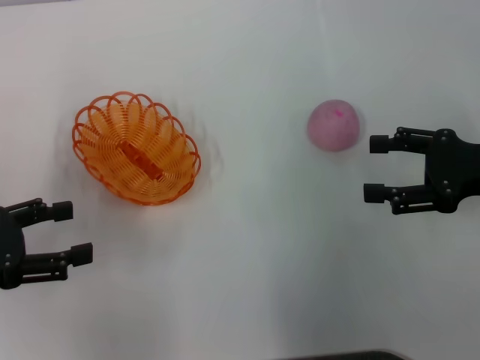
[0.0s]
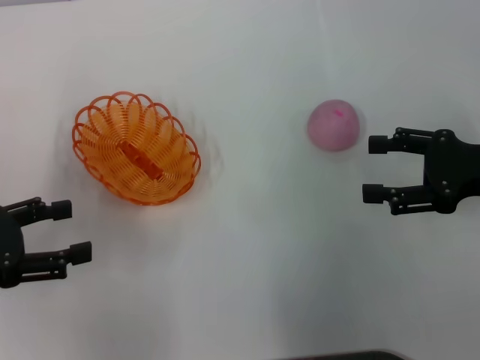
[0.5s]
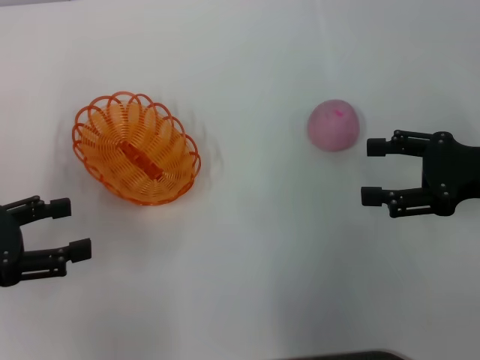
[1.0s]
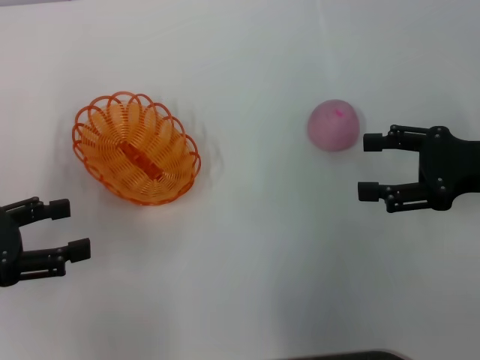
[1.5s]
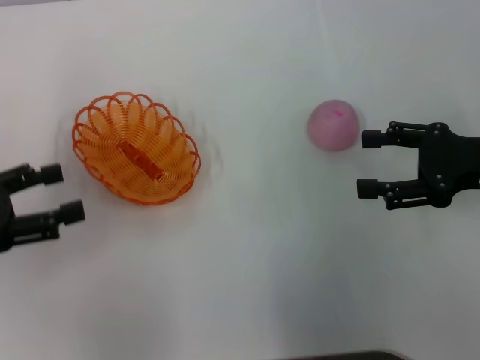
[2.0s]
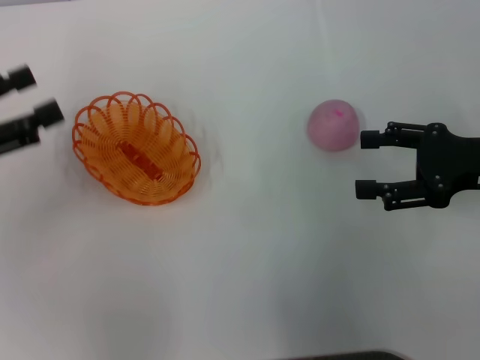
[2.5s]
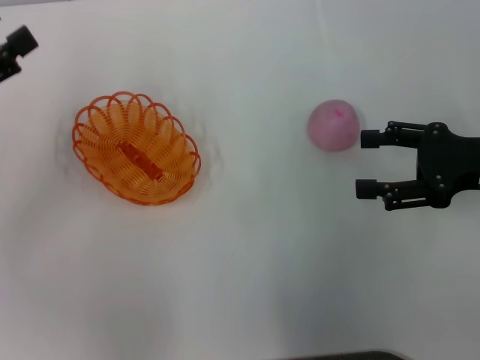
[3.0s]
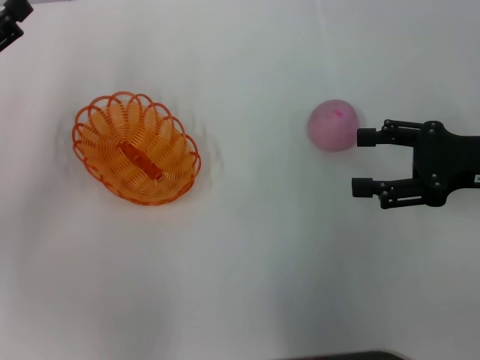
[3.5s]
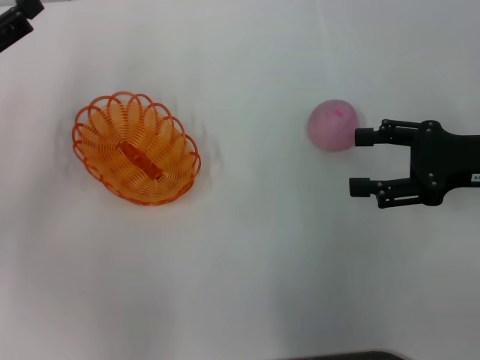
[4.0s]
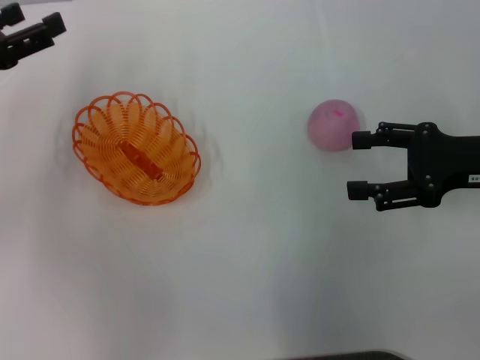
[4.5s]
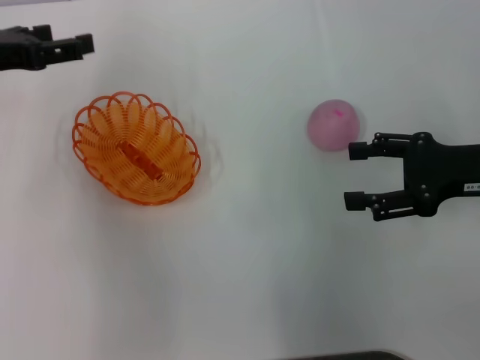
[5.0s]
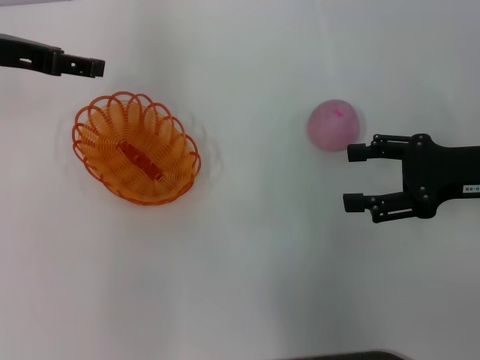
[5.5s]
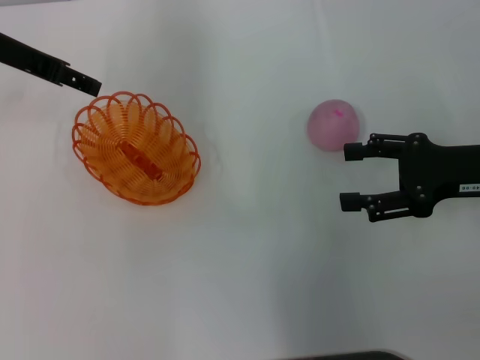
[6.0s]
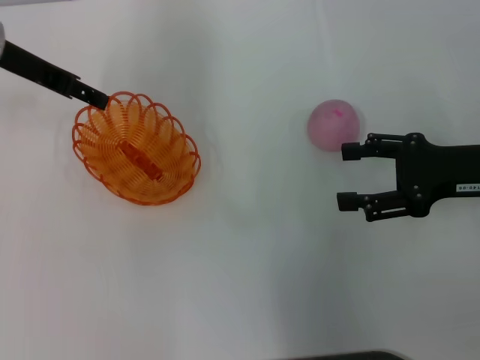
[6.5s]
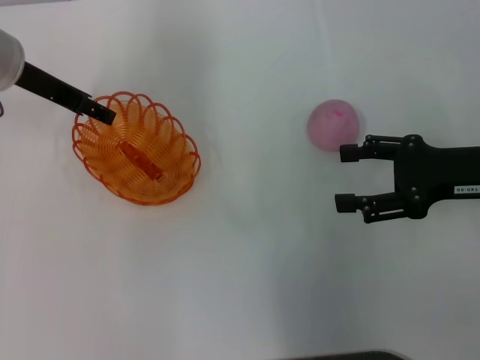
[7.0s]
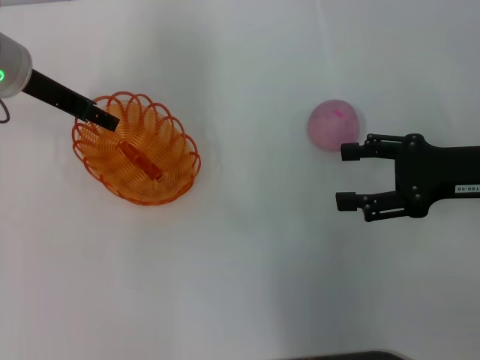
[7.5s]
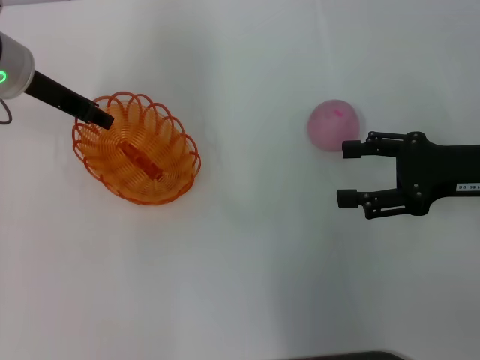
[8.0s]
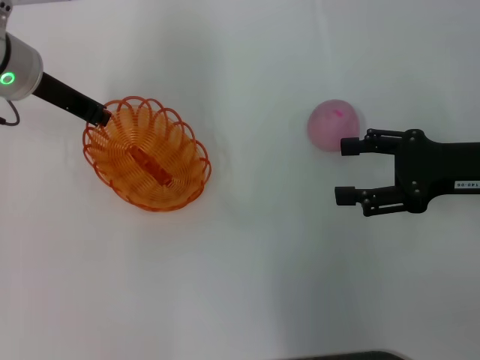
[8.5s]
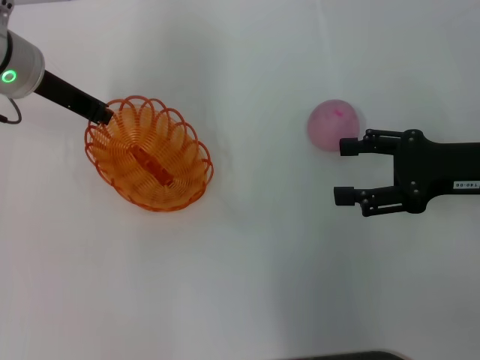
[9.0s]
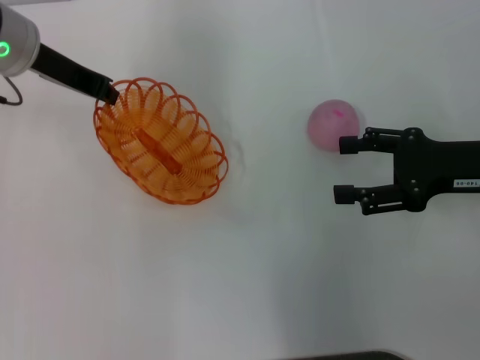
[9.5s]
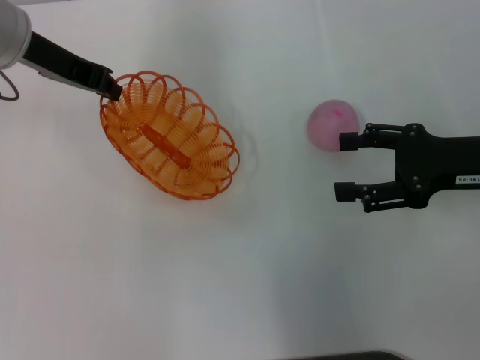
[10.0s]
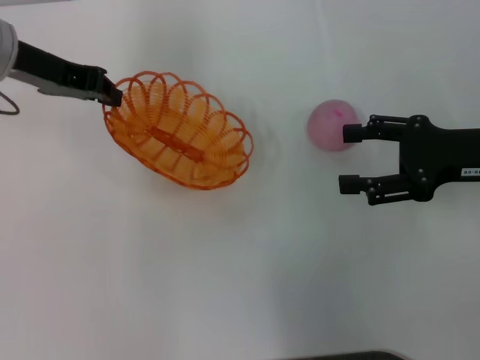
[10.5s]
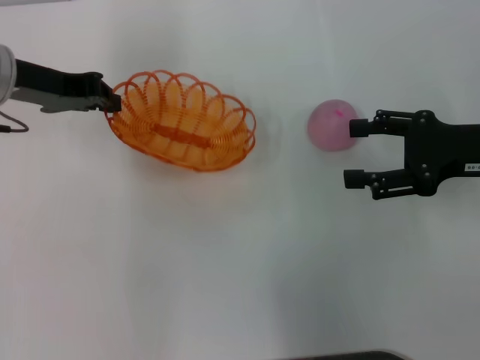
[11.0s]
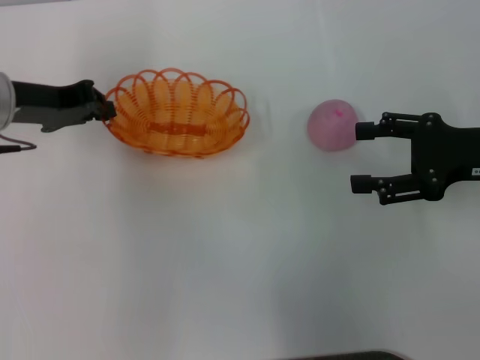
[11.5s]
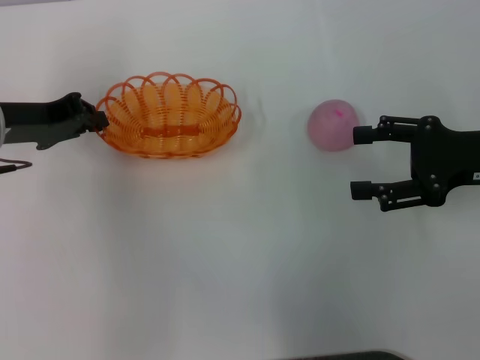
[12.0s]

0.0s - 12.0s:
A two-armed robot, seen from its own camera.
Step, 0.0s - 9.0s: Pick up the basket with the left gripper.
0.0s - 2.0s: The grippers stay close to where they were, moving slightly.
2.0s - 4.0s: The left gripper shifts some 10 cm forward.
4.0s - 6.0s: The left gripper heads forward, to the right and upward, covering about 15 cm.
6.0s - 8.0s: The left gripper changes place by roughly 5 cm.
8.0s - 10.0s: The left gripper closes up.
10.0s - 12.0s: The left gripper is displaced downward, backward and to the left by about 10 cm.

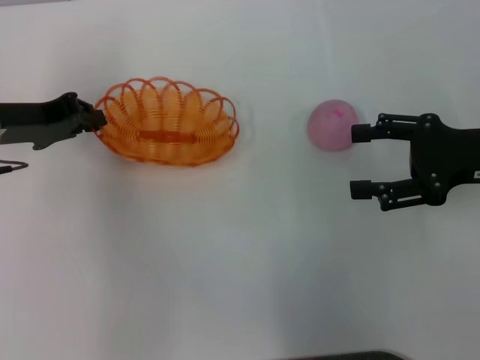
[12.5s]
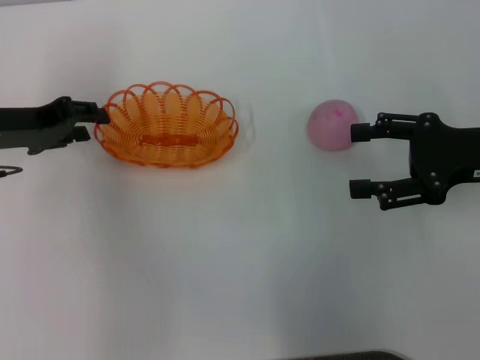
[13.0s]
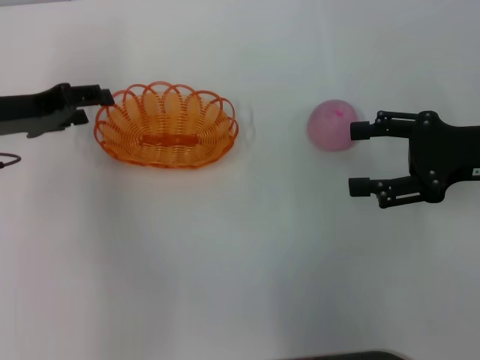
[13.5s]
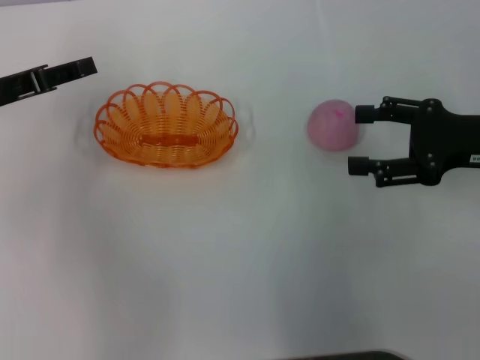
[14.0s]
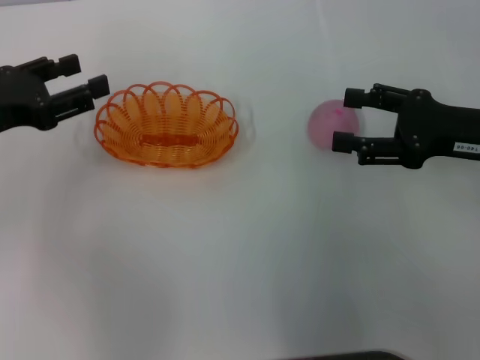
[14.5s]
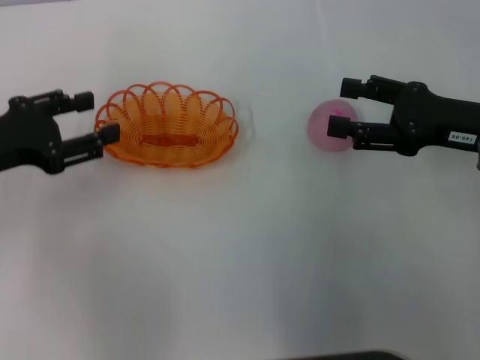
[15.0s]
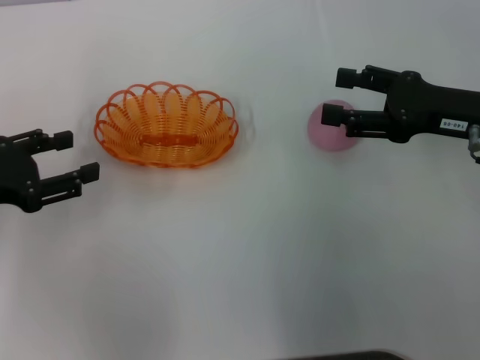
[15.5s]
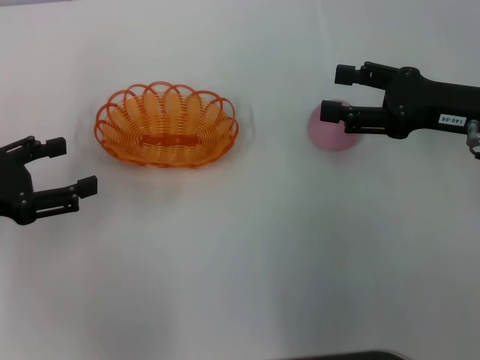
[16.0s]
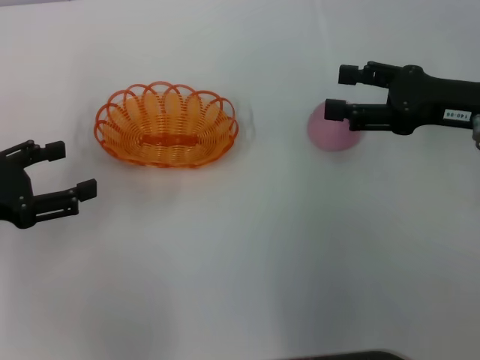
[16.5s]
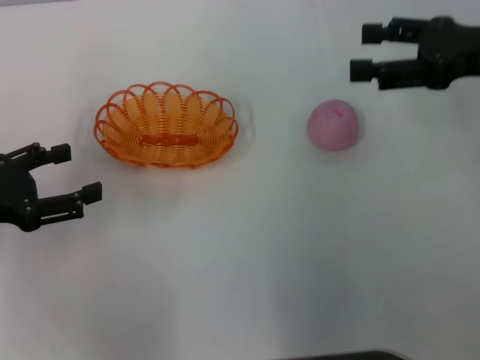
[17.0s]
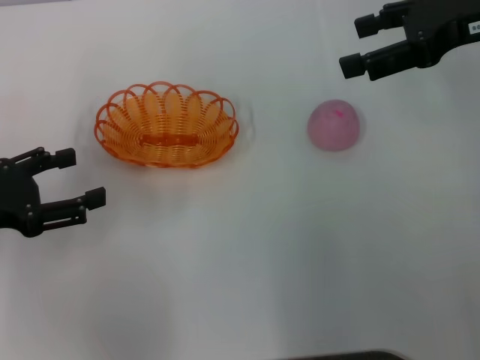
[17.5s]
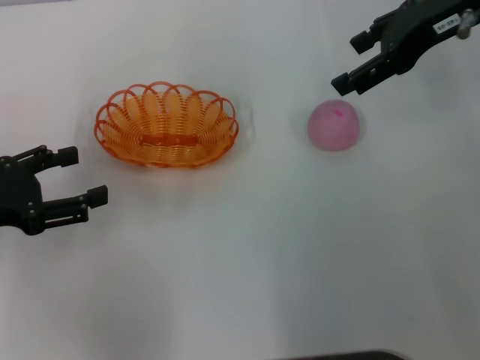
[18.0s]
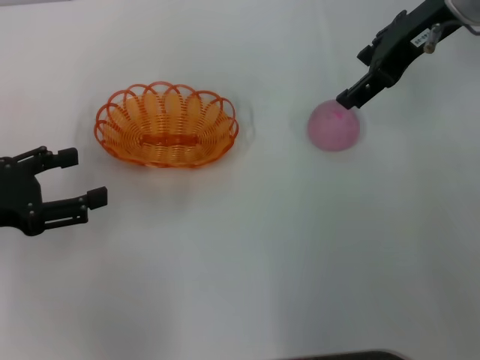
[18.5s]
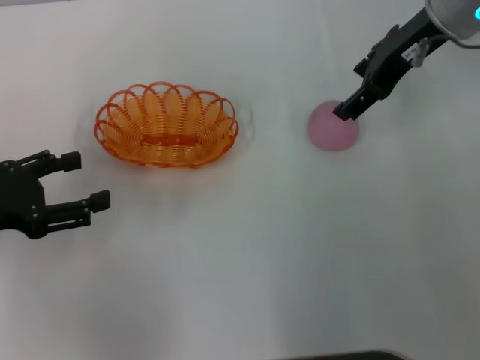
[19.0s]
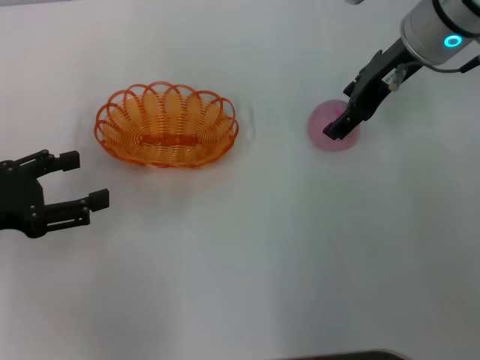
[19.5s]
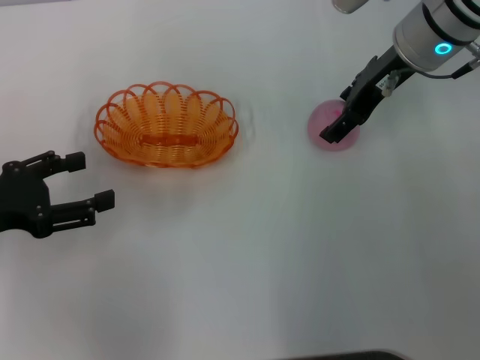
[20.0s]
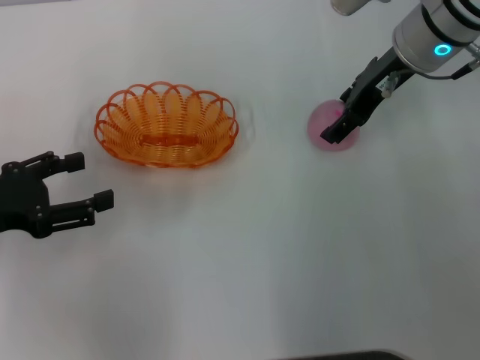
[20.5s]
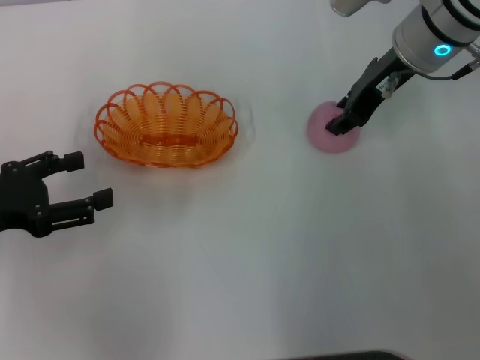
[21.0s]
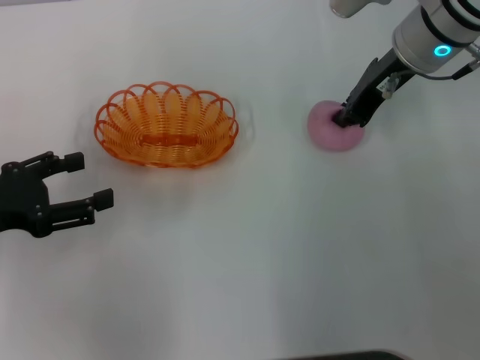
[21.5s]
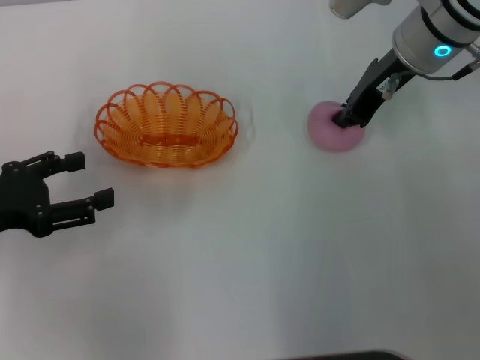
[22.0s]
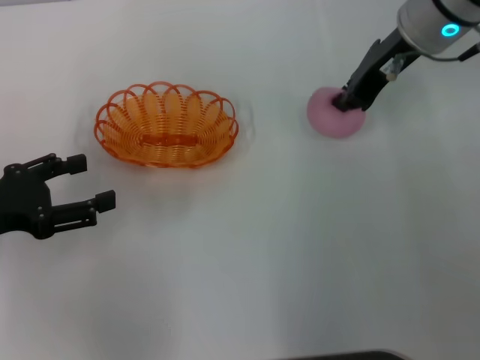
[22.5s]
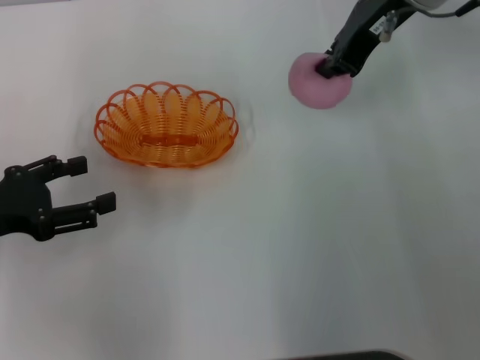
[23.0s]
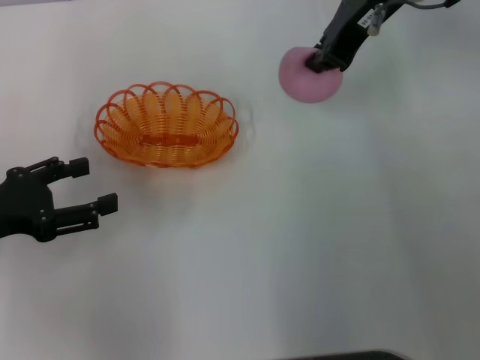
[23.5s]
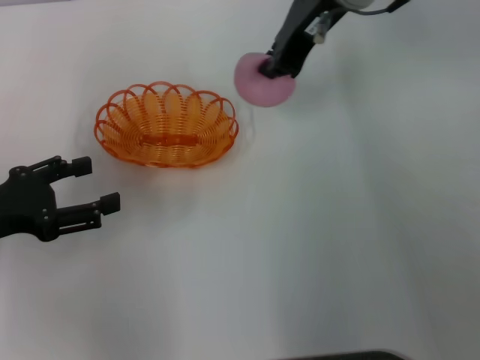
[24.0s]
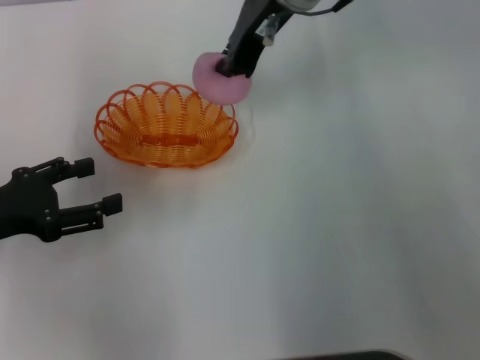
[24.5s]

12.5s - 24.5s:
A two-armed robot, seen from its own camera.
Step, 14.0s - 23.0s: Pick up the peach with the right gripper.
12.5s - 14.5s: The left gripper changes place by some 5 cm, and opens.
14.5s - 16.5s: The left gripper shifts about 5 cm backward.
16.5s - 18.5s: The right gripper moves upward, forward and to the left, about 15 cm.
18.5s - 20.5s: The right gripper travels downward by about 5 cm.
20.5s - 22.5s: The right gripper closes.
22.5s - 24.5s: The right gripper is displaced to the left by about 10 cm.

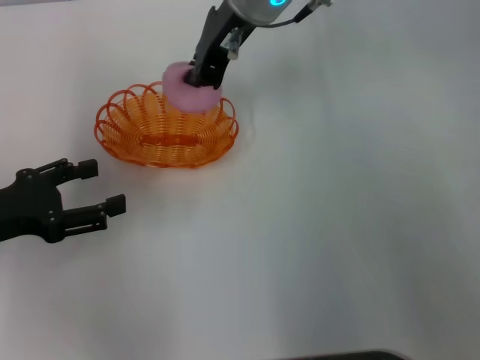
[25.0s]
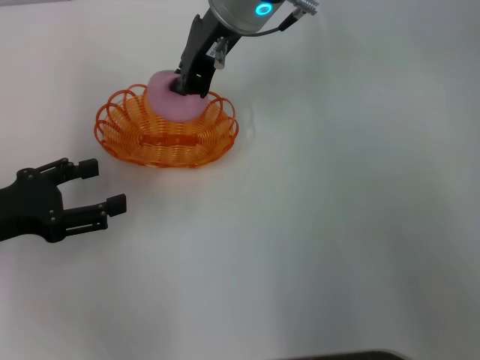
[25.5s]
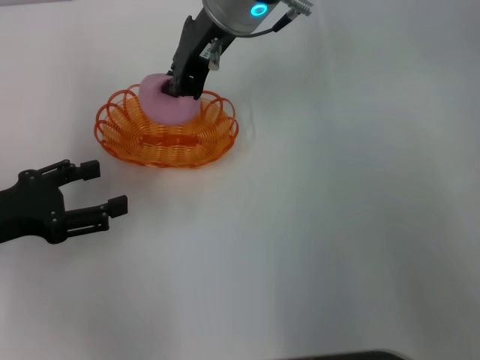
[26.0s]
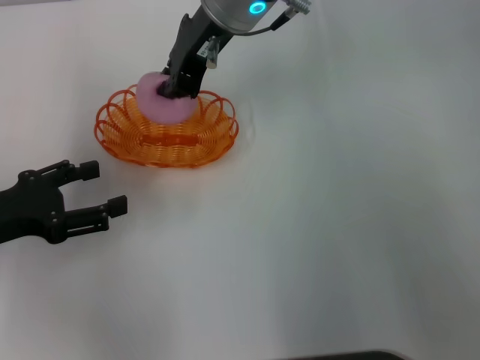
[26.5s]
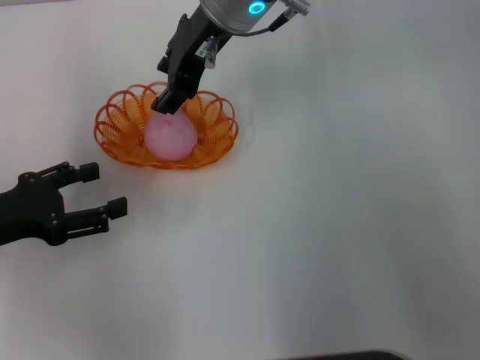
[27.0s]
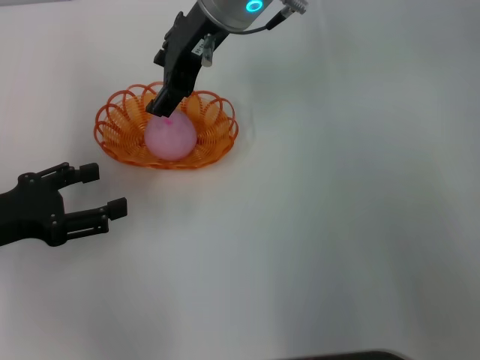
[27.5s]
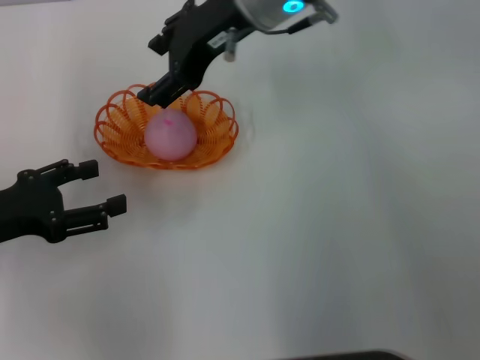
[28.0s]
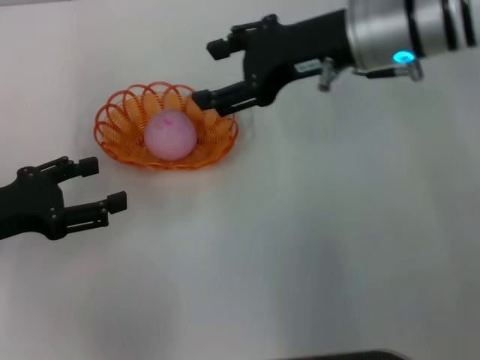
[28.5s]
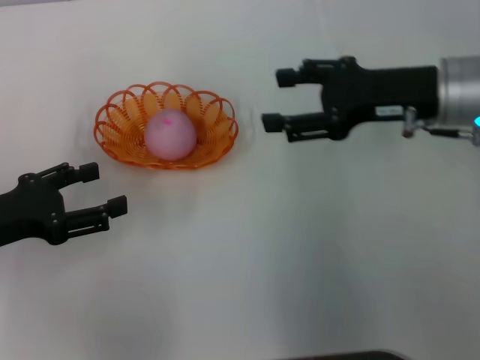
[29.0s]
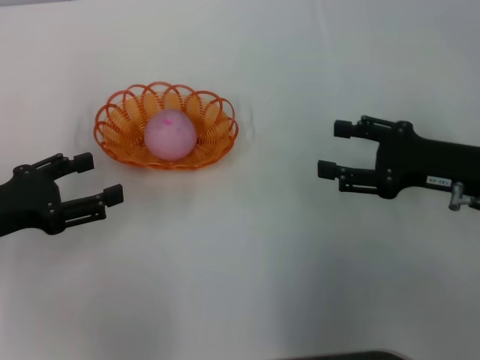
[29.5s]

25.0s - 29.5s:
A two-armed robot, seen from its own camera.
Step, 25.0s - 28.0s: Place the peach into the basket with the right gripper.
25.0s - 27.0s: The right gripper opens.
27.0s - 29.5s: The right gripper is displaced to the right, backward and downward by about 35 cm, and opens.
